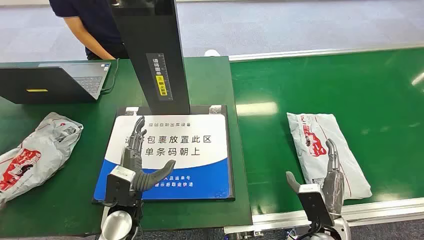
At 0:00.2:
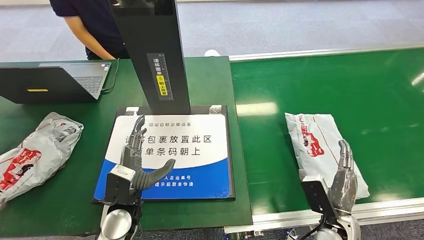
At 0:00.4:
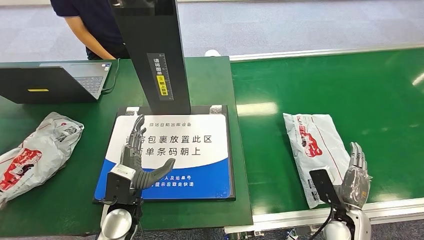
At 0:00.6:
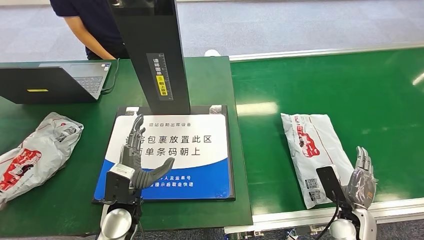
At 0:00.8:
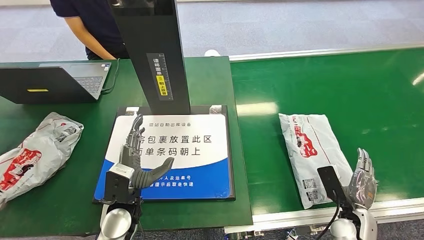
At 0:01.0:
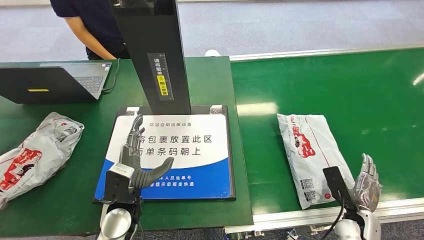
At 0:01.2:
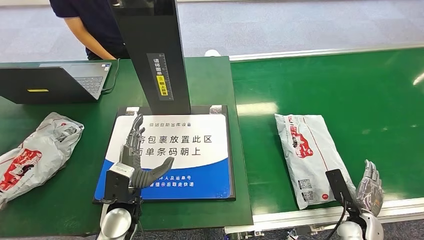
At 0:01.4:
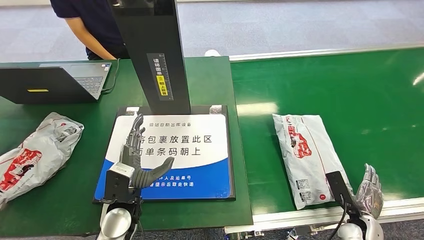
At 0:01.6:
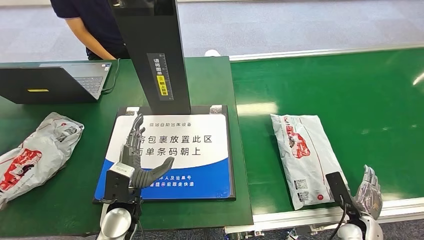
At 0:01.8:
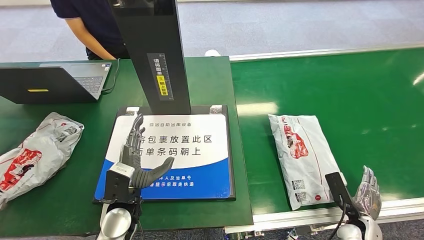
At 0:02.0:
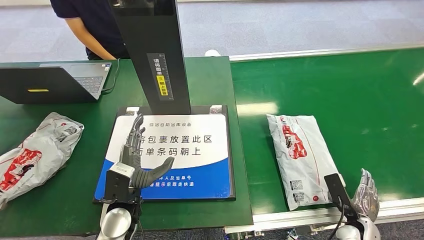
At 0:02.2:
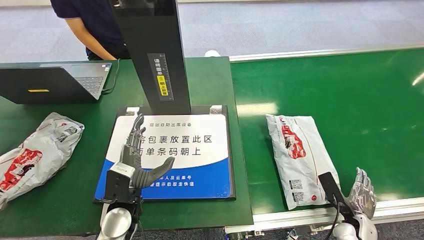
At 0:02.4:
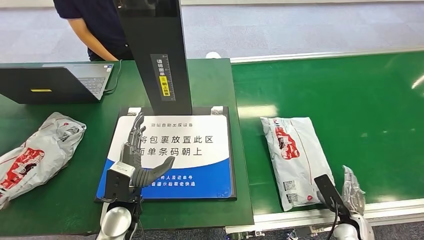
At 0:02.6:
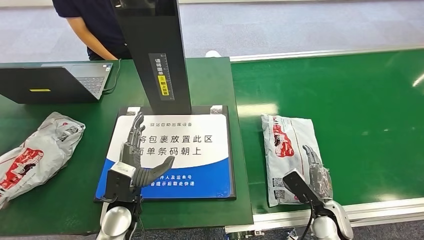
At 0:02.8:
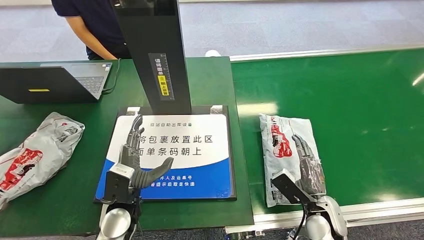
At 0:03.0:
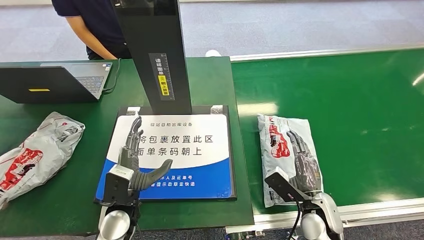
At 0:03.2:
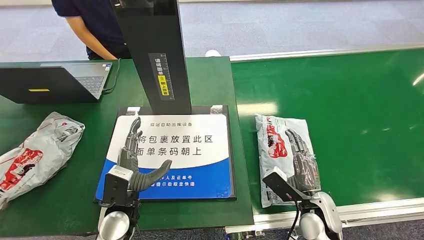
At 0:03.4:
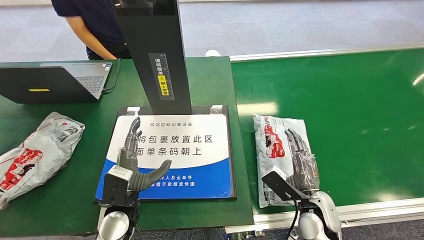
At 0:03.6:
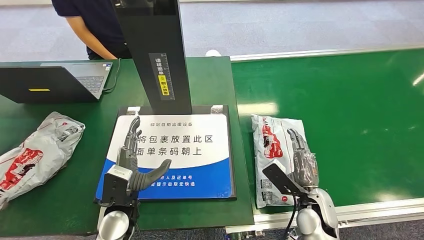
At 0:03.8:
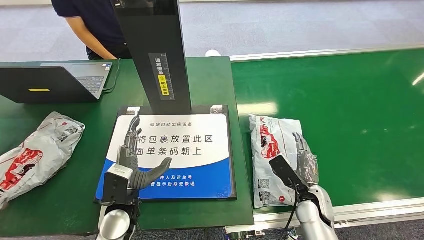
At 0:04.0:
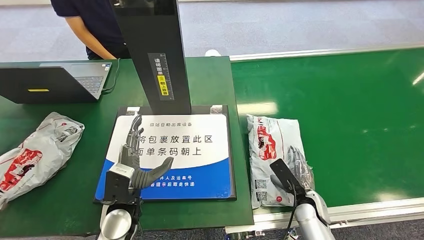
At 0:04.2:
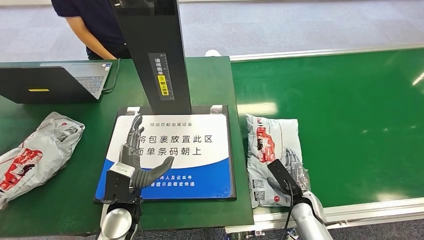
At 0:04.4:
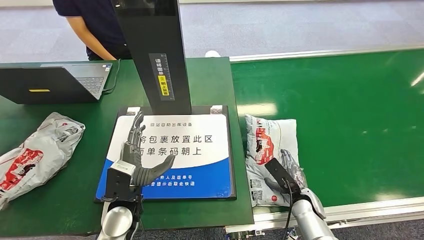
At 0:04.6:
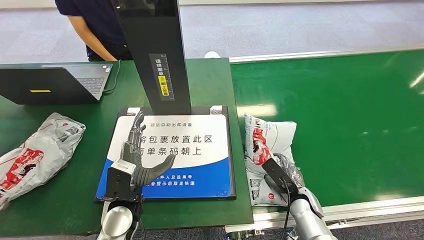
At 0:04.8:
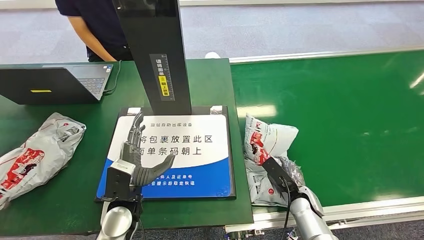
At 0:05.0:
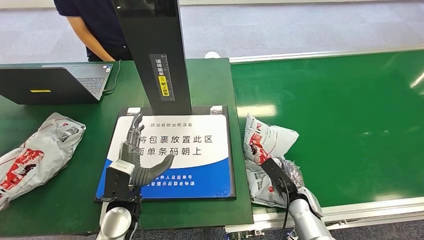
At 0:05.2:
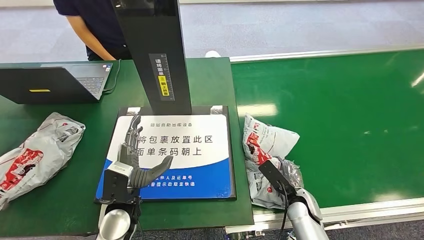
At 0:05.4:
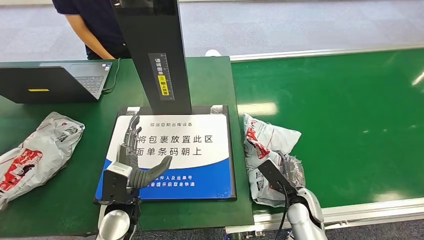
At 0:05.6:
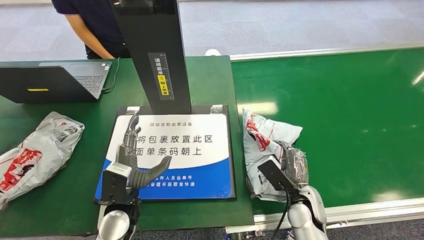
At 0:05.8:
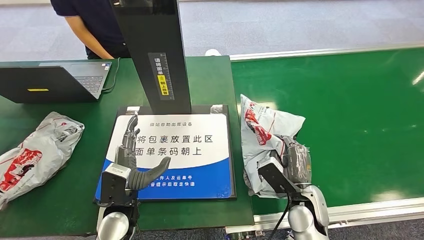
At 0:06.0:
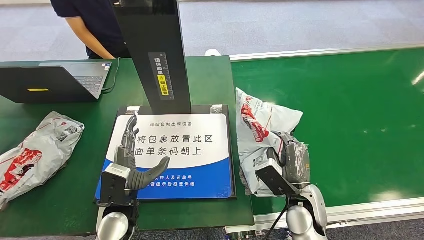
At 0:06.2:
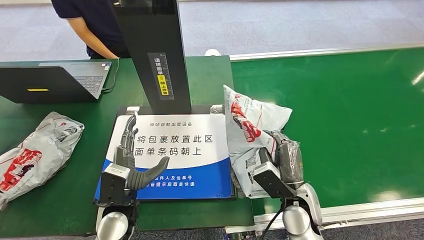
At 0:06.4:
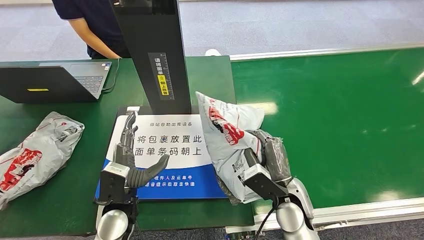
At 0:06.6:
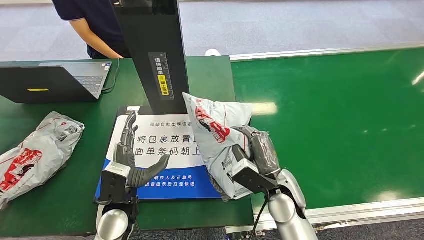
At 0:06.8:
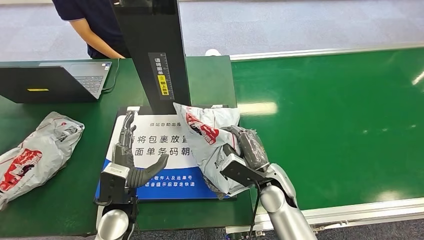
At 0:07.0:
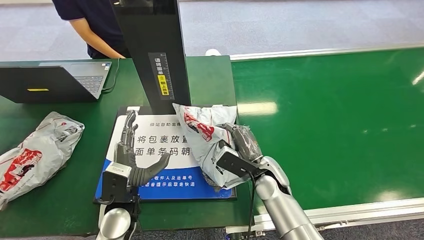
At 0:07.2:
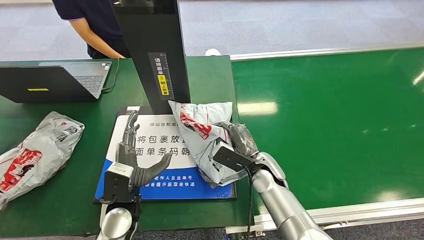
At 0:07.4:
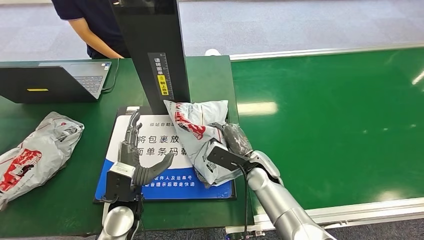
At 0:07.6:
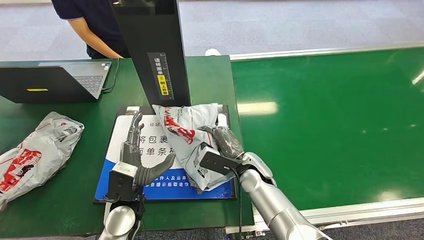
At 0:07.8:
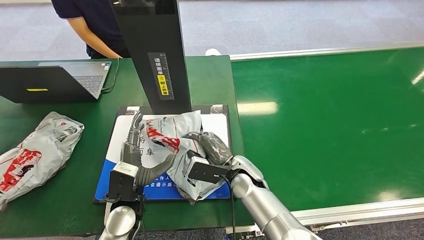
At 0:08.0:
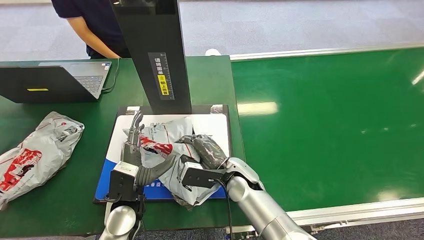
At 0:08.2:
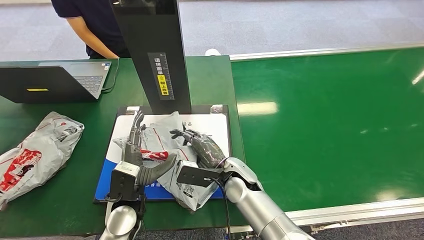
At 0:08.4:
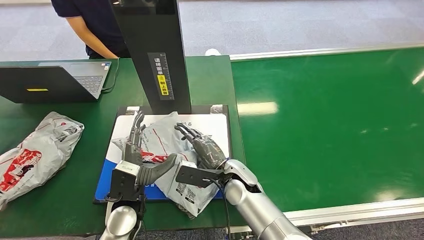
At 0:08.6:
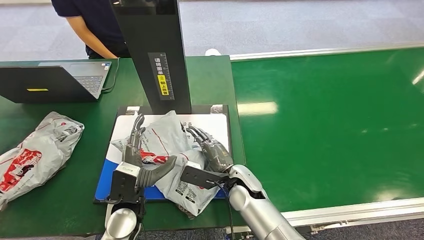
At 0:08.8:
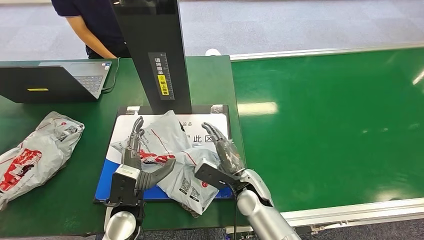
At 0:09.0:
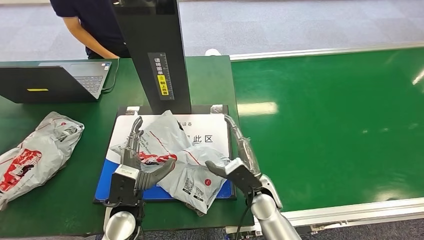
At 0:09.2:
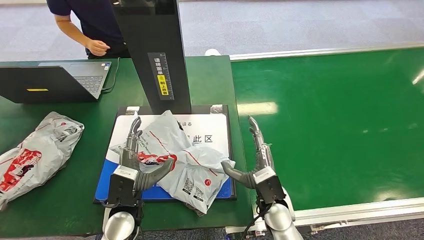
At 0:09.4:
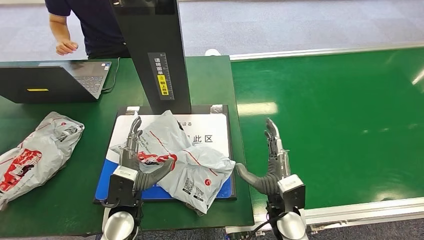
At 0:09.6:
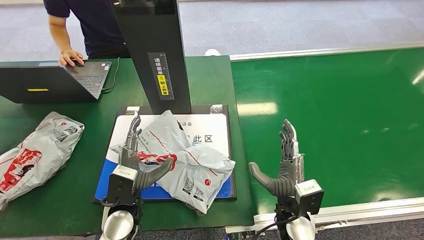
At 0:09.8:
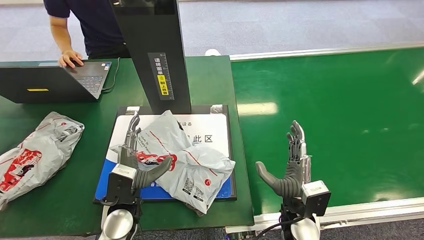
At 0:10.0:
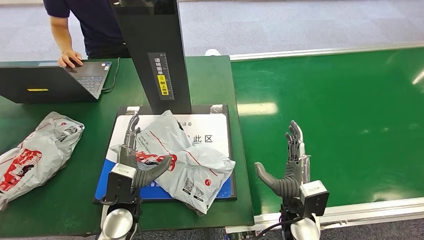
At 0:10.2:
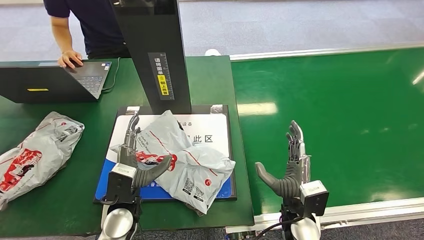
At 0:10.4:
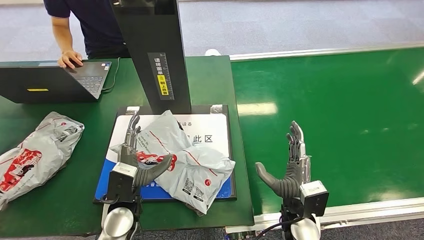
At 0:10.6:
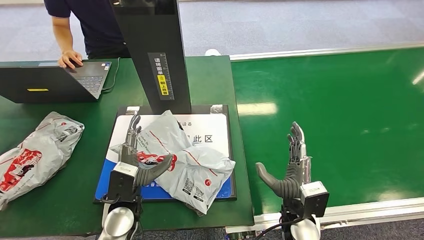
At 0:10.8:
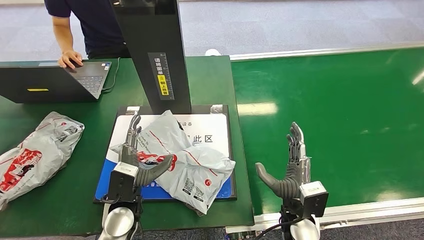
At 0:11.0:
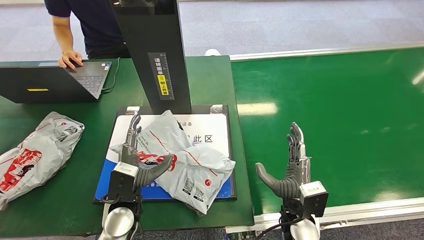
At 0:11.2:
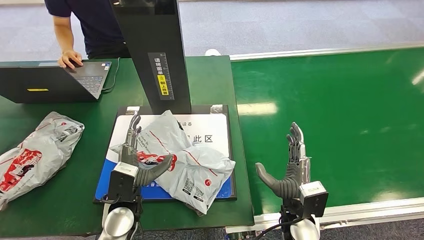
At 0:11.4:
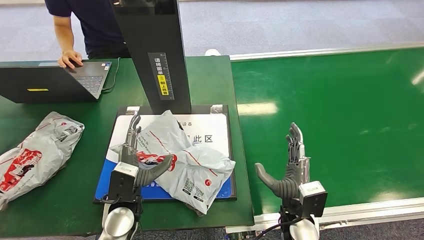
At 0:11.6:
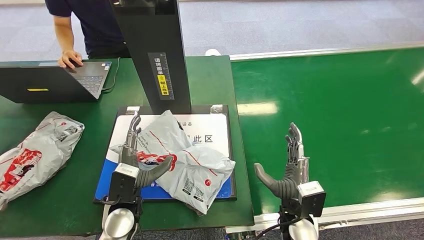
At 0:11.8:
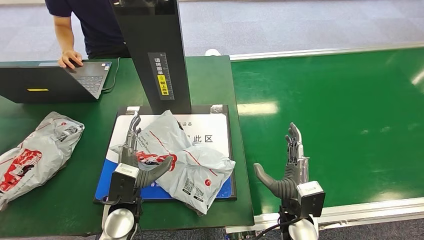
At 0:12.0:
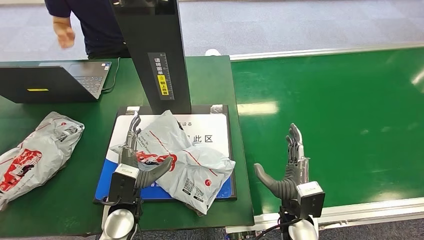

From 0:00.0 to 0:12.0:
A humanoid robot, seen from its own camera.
Task of the whole recording: Weigh the package on the weighing device and place it in the left basket.
Step, from 0:00.0 to 0:06.0: Pick up the package from the conveyor belt.
Step, from 0:06.2 to 0:10.0: Place the package onto the inbound machine.
From 0:01.6 to 0:03.0: The right hand is displaced to the left and upward by roughly 15 cm.
From 0:03.0 to 0:04.4: The right hand goes approximately 10 cm downward.
From 0:04.4 to 0:06.0: The right hand is displaced upward and to the left by some 15 cm.
From 0:06.0 to 0:07.6: The right hand shifts about 15 cm to the left and forward.
From 0:07.6 to 0:09.0: The right hand shifts roughly 5 cm backward.
From 0:09.0 to 0:10.4: The right hand goes approximately 10 cm to the right and backward.
From 0:10.4 to 0:12.0: The two hands keep their place.

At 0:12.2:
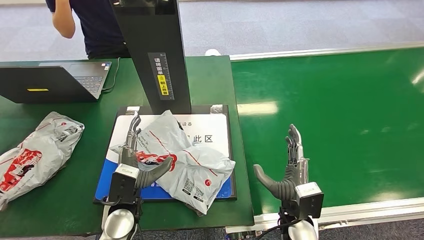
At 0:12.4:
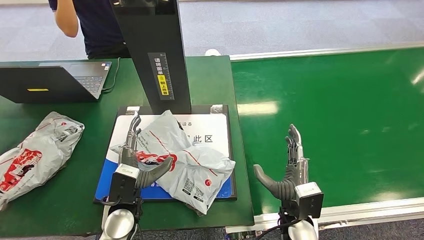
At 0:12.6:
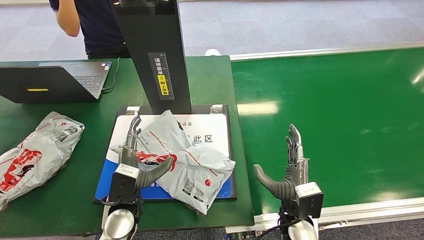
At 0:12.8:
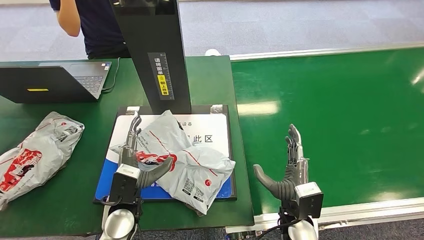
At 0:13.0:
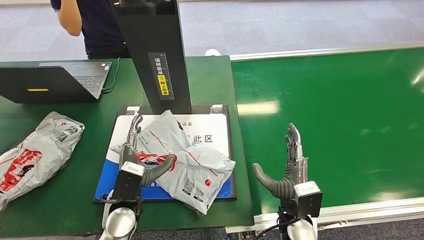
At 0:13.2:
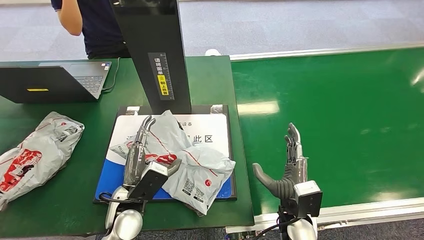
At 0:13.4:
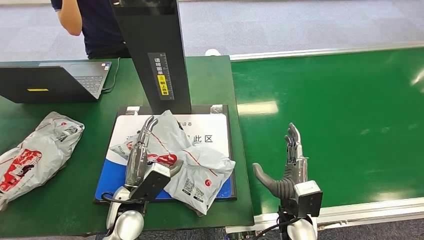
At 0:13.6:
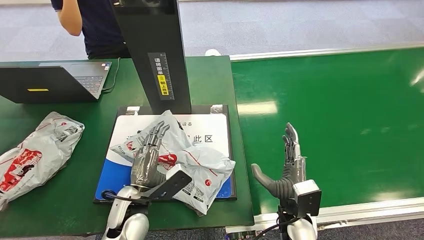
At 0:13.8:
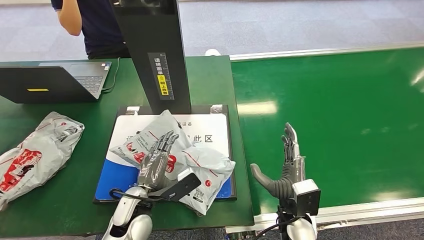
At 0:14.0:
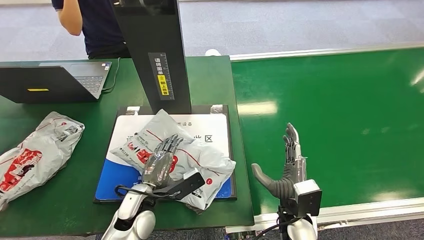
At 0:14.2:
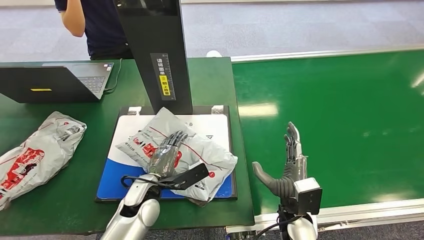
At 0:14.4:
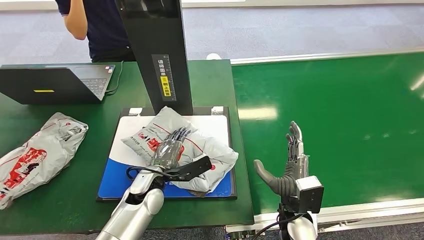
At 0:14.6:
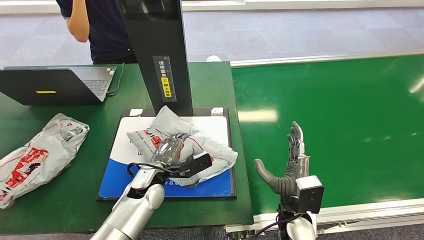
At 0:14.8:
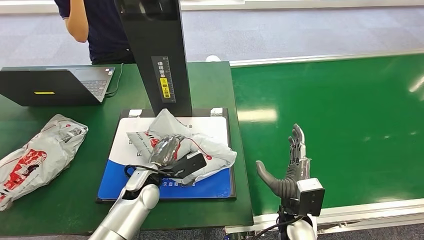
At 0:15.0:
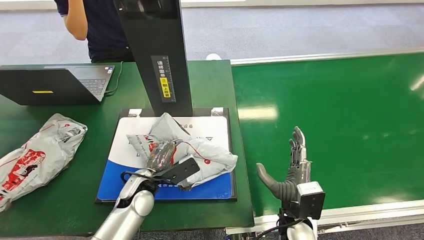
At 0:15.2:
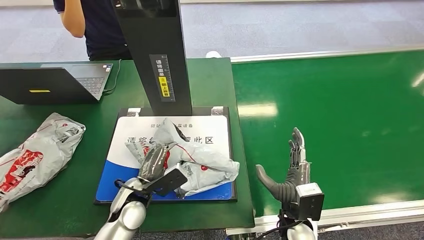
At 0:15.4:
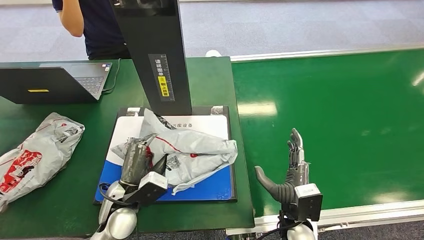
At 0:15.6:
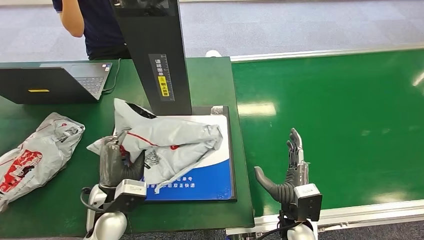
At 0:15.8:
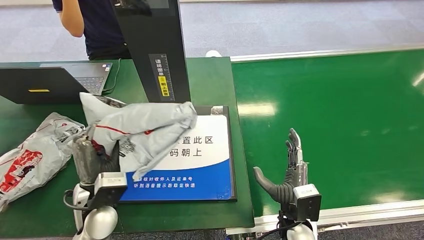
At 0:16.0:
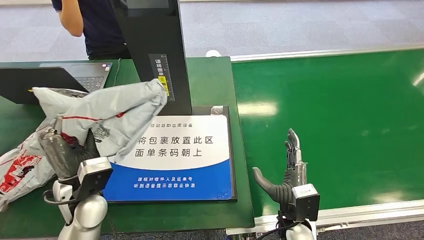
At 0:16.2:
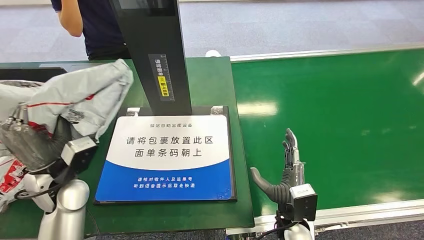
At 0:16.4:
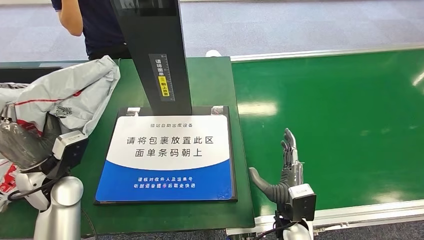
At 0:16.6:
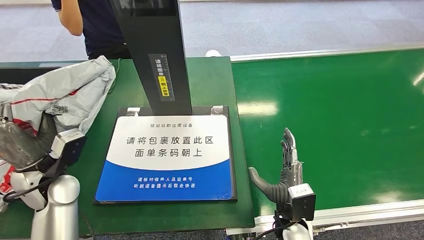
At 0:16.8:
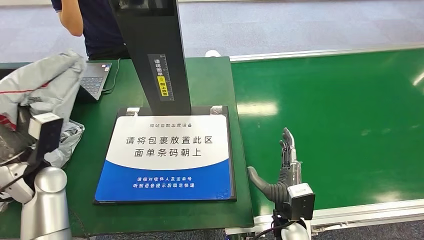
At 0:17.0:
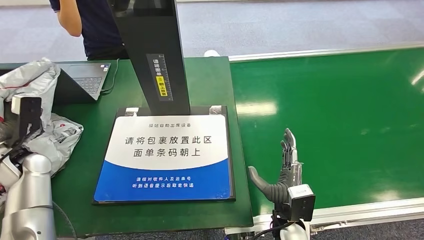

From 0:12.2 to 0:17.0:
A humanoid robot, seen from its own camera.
Task of the whole recording: Weigh the package on the weighing device and place it in the left basket.
Step, from 0:12.2 to 0:15.6: Pick up the package from the inbound machine.
